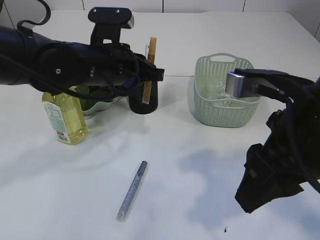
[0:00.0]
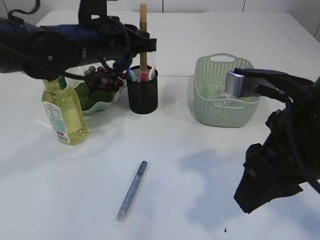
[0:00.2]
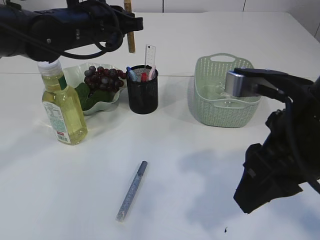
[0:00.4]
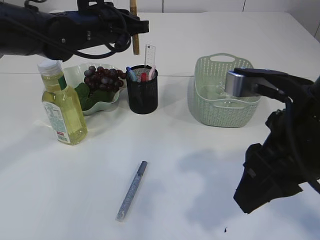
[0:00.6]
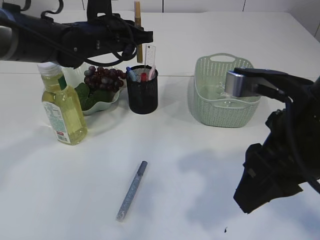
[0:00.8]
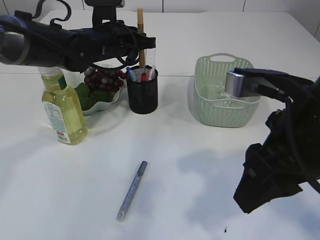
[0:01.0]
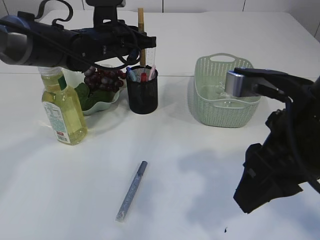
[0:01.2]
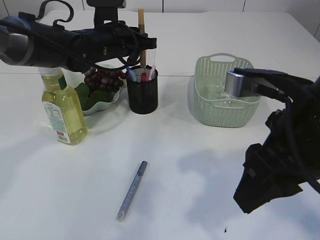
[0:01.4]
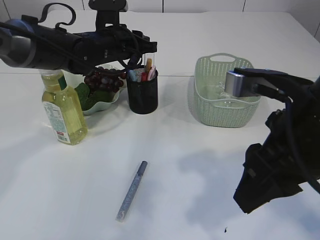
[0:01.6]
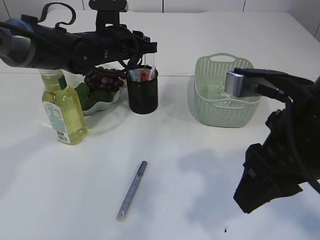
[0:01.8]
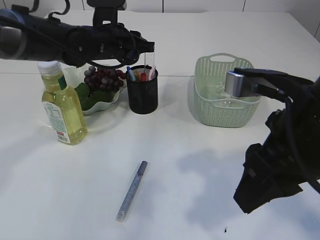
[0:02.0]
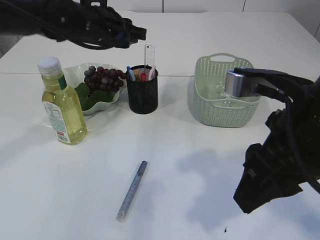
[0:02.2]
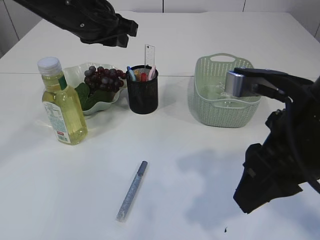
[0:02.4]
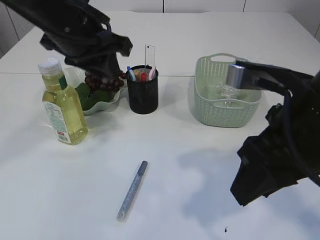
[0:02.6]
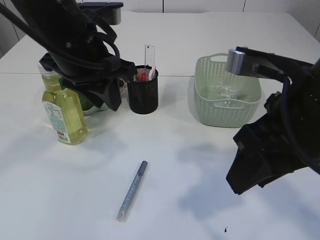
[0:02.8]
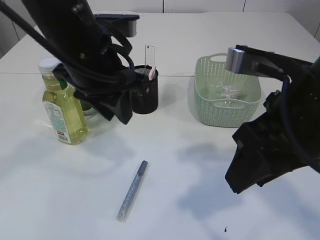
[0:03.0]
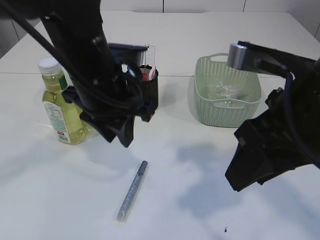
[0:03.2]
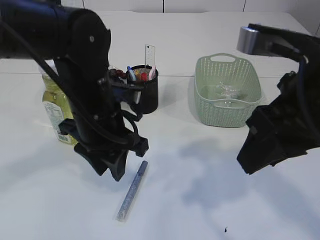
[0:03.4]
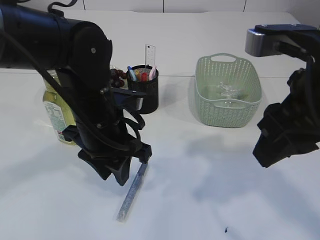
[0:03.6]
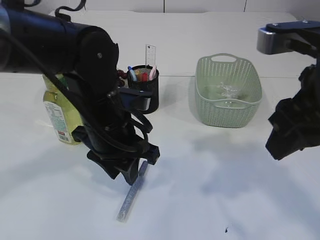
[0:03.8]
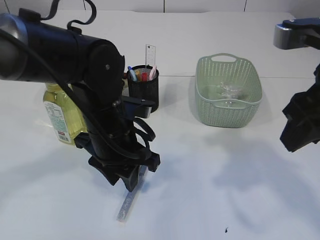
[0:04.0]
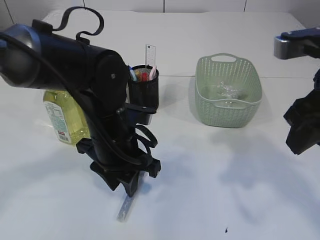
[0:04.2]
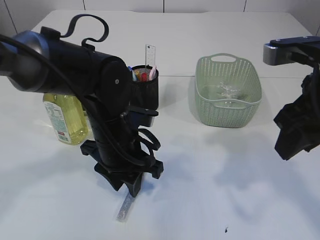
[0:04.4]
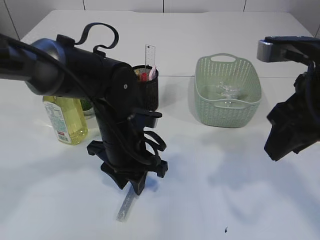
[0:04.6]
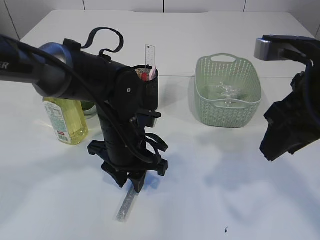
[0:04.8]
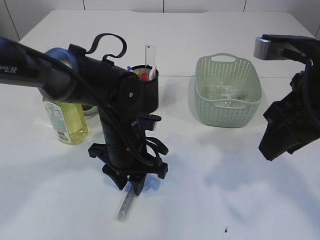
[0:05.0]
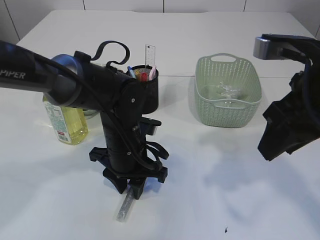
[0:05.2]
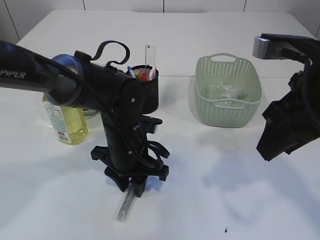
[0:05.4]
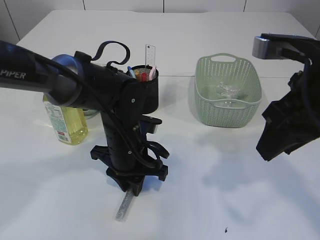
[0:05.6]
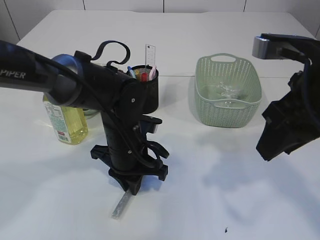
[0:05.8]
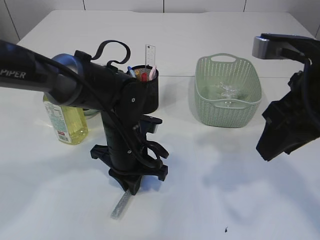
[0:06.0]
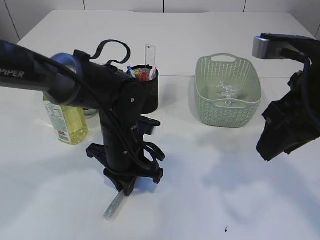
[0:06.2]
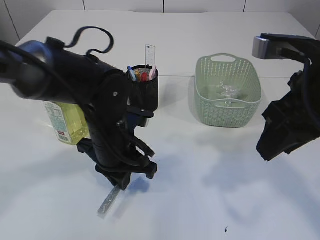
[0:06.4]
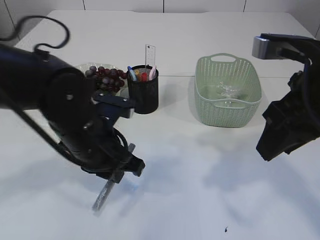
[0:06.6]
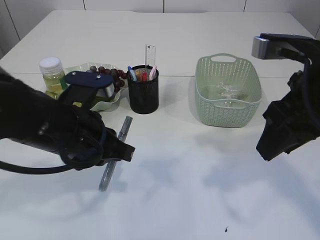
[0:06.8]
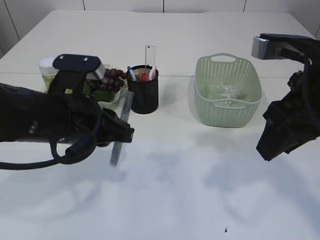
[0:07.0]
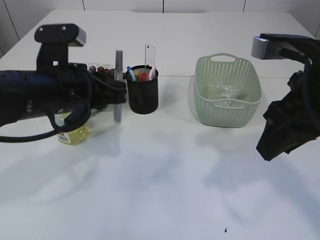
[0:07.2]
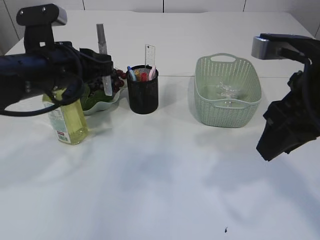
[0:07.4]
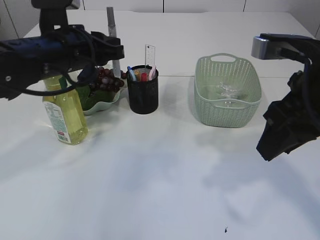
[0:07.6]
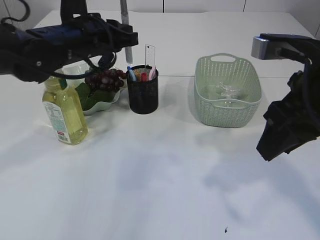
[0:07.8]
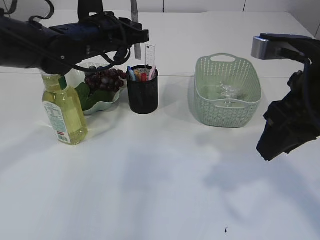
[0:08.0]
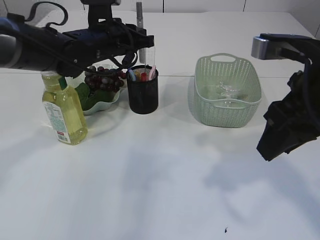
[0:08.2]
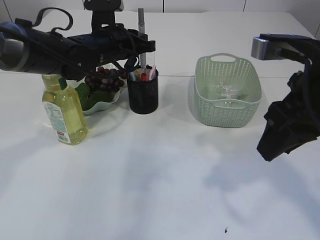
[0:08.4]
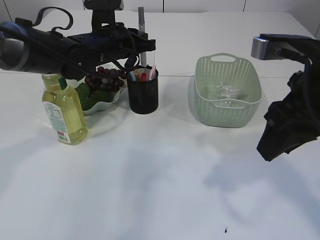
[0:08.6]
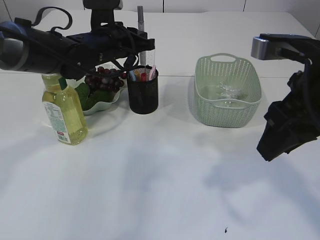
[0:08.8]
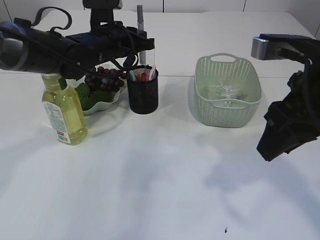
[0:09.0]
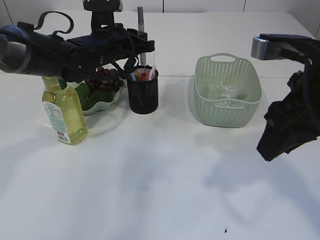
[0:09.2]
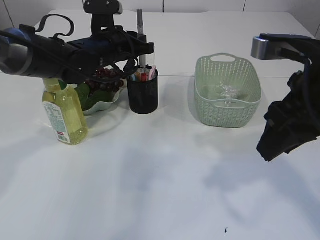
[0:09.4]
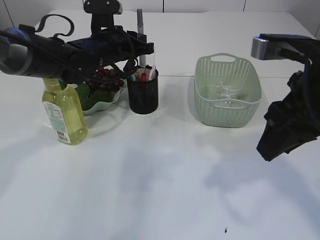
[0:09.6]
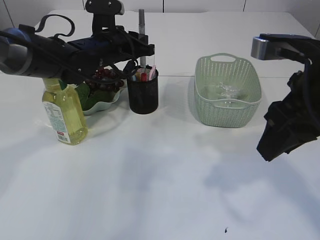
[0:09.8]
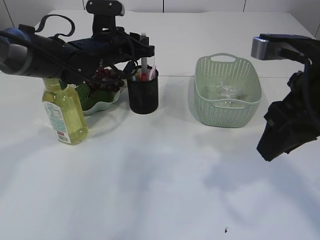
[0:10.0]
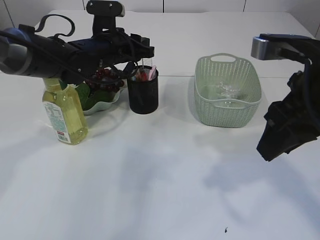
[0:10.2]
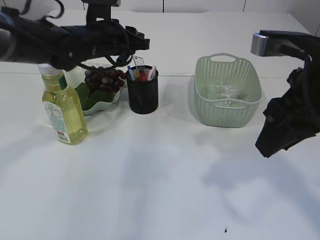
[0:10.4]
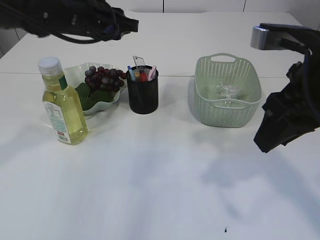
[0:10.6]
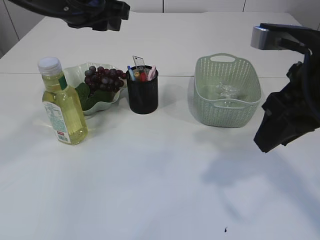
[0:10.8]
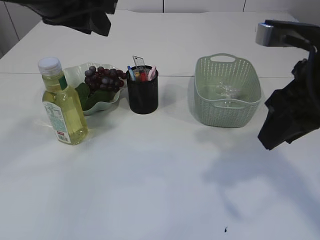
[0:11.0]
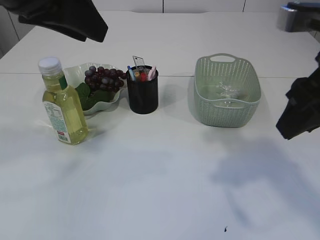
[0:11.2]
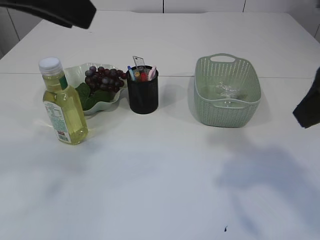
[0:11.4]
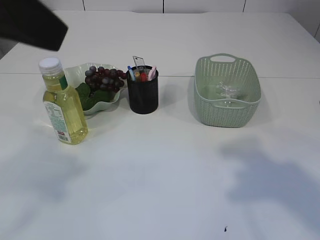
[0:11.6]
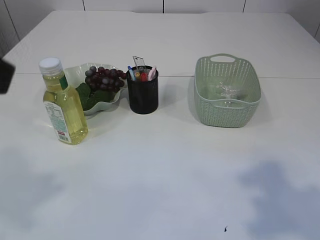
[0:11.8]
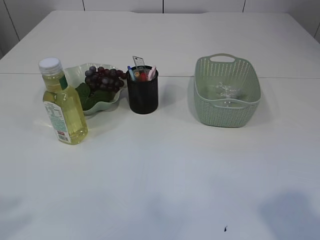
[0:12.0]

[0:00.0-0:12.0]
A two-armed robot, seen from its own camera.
Step, 0:00.0 to 0:02.4: place the yellow glue into the pen holder.
Step, 0:02.6 to 0:06.8: pick up the silver glue.
Step, 0:07.0 to 0:10.6: place the silver glue into the pen holder.
0:00.0 to 0:01.6: The left gripper is displaced forward by some 10 cm.
0:01.6 to 0:03.0: The left gripper goes approximately 20 cm backward and upward.
0:03.0 to 0:04.4: The left gripper travels downward by approximately 15 cm. Meanwhile the right gripper shifts about 5 cm to the right.
0:04.4 to 0:06.0: The left gripper closes its fingers.
0:06.0 to 0:07.6: The left gripper moves upward and to the left, about 15 cm.
0:07.6 to 0:09.0: The left gripper shifts approximately 10 cm forward.
0:09.0 to 0:10.4: The grippers make only small movements.
0:10.4 to 0:12.0: The right gripper goes approximately 15 cm backward; the left gripper moves backward, some 35 cm.

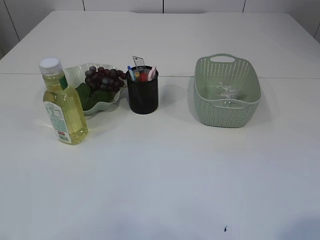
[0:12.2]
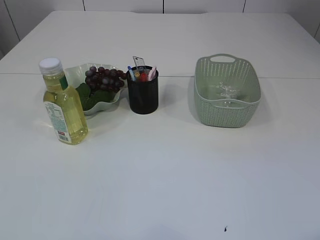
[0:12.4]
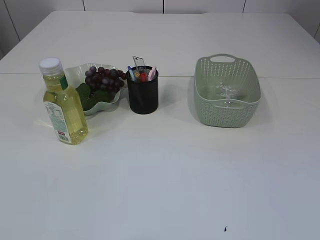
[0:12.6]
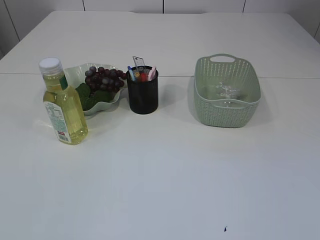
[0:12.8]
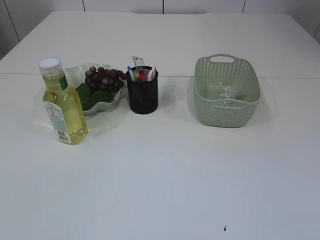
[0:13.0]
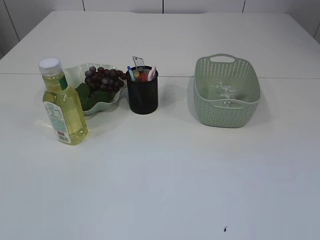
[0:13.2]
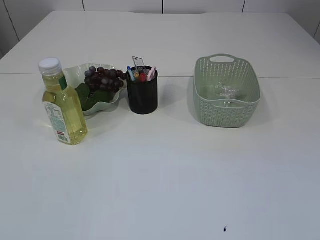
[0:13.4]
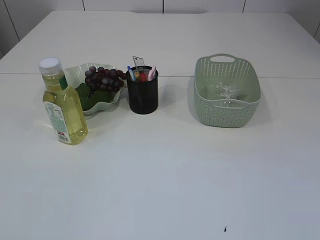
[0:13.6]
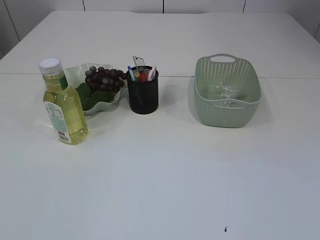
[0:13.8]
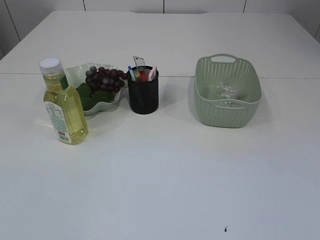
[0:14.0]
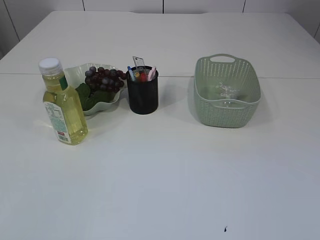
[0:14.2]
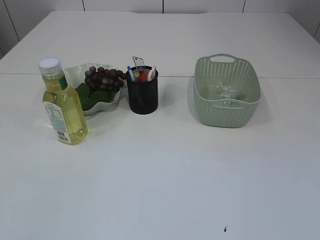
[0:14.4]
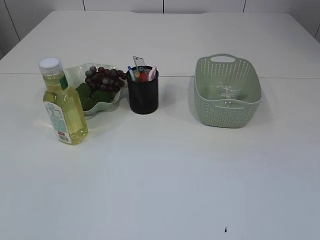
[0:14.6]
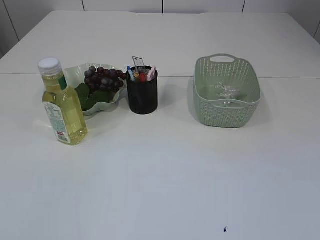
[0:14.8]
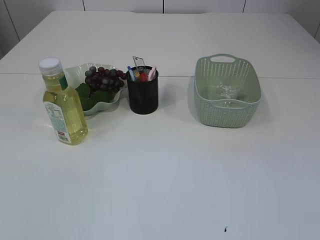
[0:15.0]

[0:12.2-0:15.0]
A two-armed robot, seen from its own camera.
0:12.2 to 0:13.6: The right gripper shifts approximately 5 cm downward.

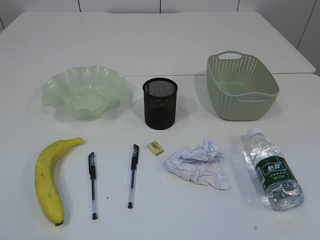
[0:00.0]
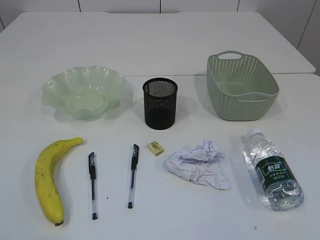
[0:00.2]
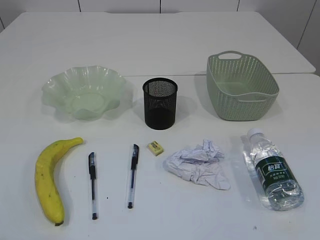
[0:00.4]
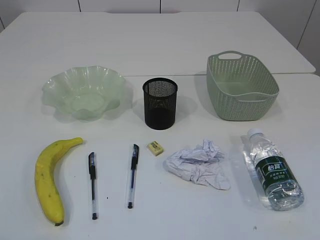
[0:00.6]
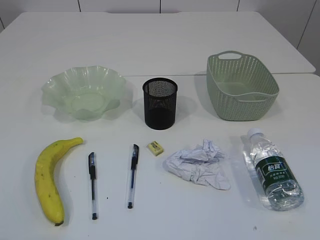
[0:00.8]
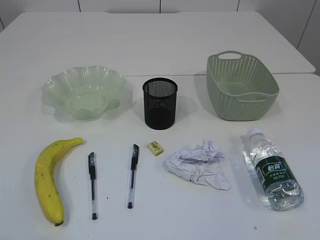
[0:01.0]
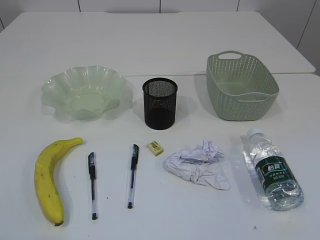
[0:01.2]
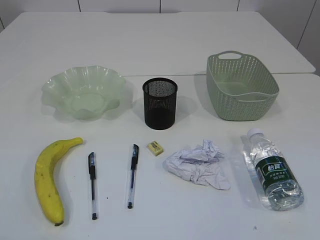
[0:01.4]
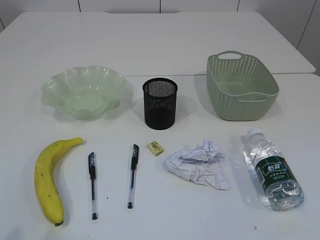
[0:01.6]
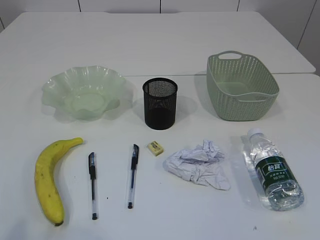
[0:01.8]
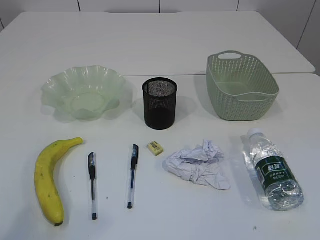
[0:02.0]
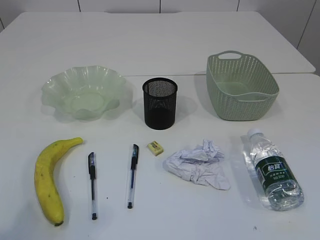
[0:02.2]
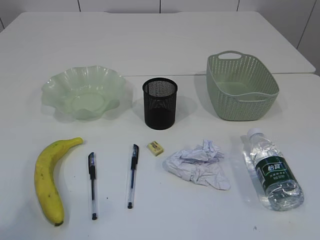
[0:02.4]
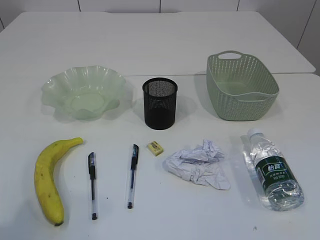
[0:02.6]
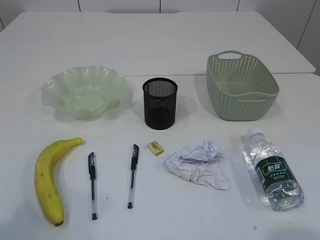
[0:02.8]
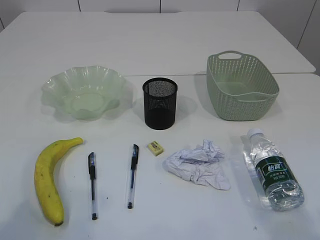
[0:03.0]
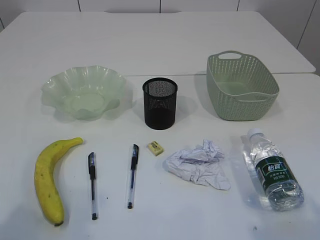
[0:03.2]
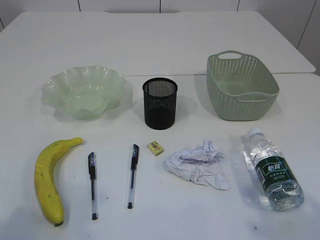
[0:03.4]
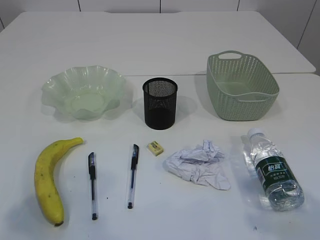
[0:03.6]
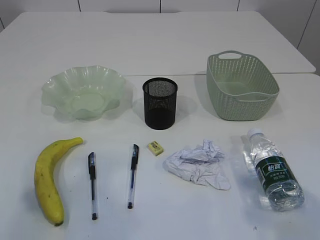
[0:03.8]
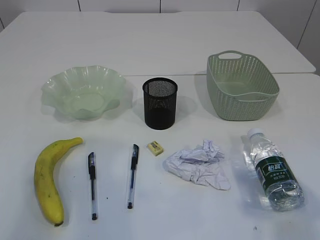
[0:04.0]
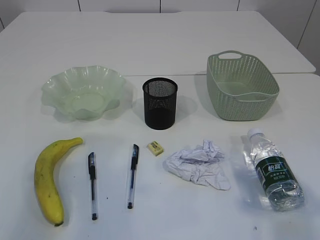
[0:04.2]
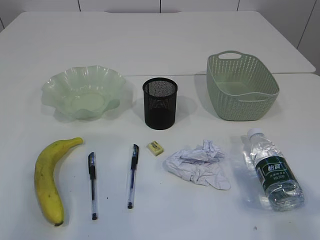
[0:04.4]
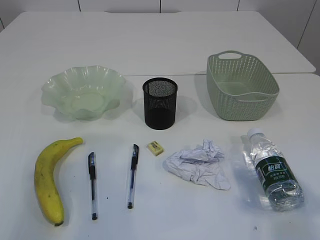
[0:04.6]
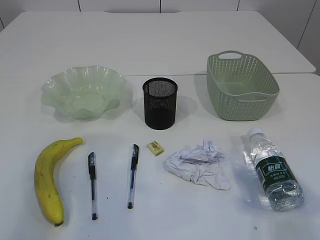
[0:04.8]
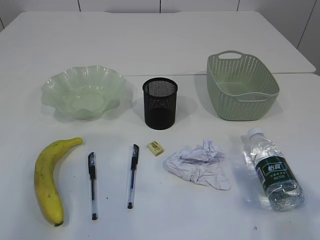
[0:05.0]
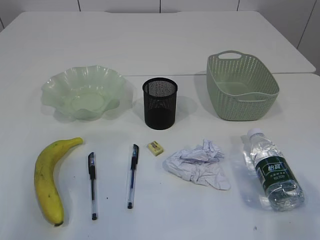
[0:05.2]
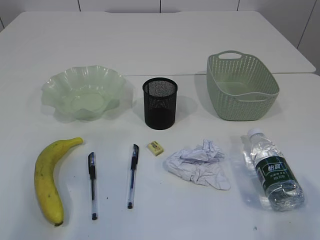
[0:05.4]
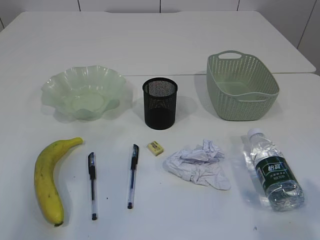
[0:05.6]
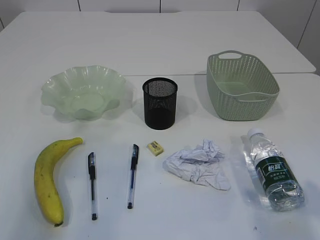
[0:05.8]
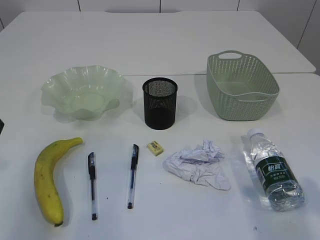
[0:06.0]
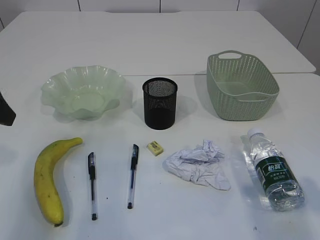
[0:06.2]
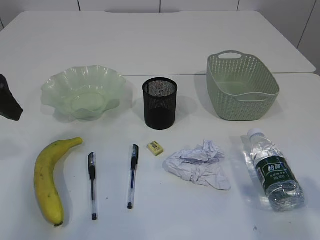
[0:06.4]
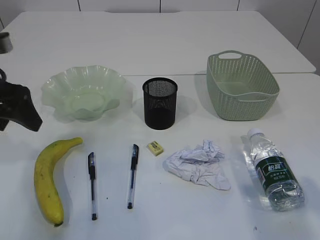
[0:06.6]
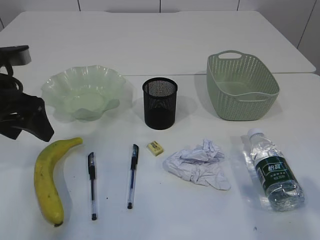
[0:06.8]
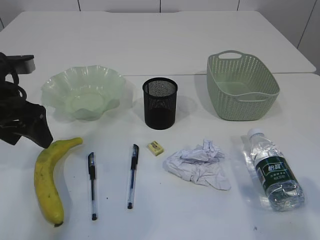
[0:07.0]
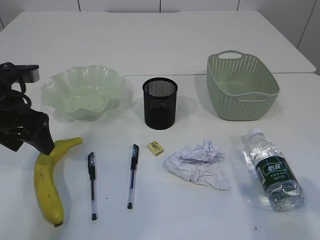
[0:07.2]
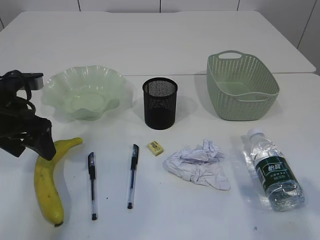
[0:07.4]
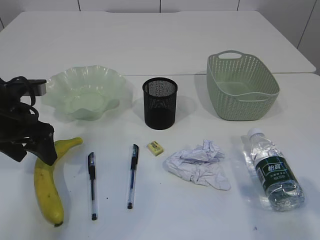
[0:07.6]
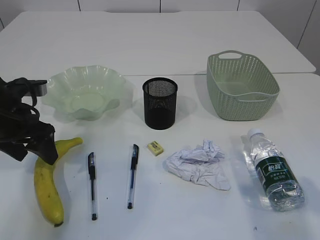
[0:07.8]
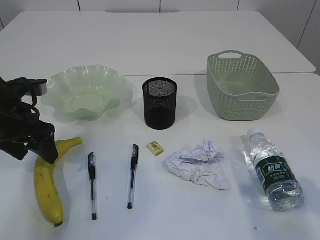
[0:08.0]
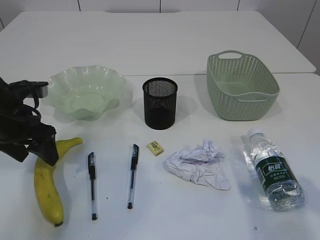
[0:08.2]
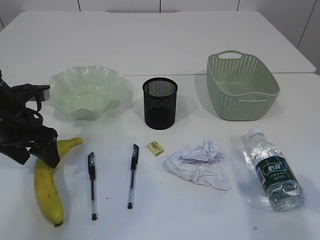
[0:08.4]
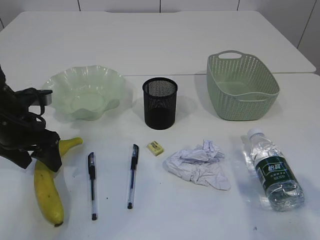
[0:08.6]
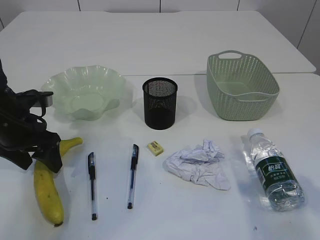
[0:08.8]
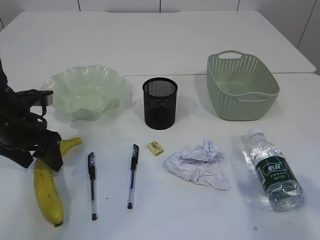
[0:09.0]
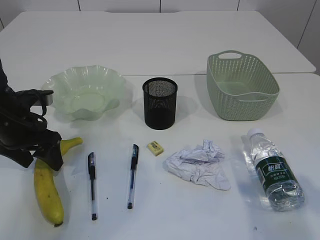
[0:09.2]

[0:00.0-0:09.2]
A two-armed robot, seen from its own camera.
0:01.6 to 0:03.0: The left gripper travels forward by some 5 cm.
0:04.6 to 0:06.2: The left gripper heads forward and downward, covering about 10 cm.
0:06.2 to 0:07.6: The left gripper travels downward and forward by some 10 cm.
0:07.6 to 0:09.2: The grippers make only small movements.
